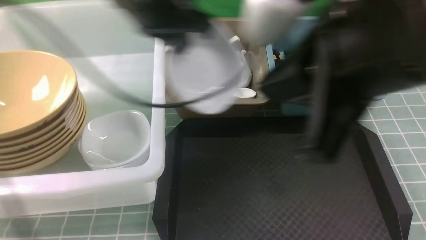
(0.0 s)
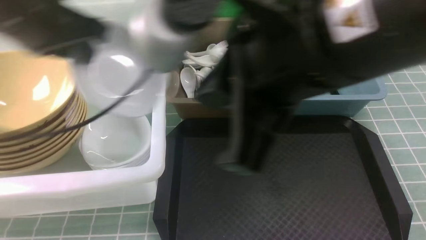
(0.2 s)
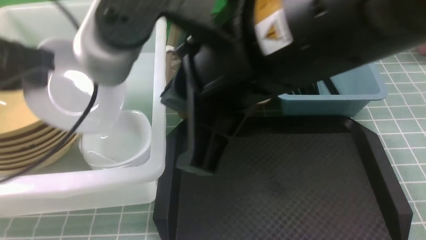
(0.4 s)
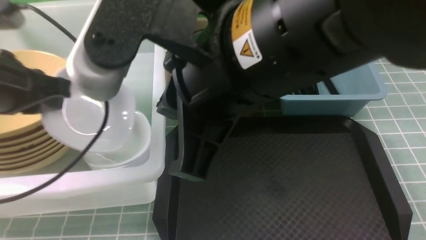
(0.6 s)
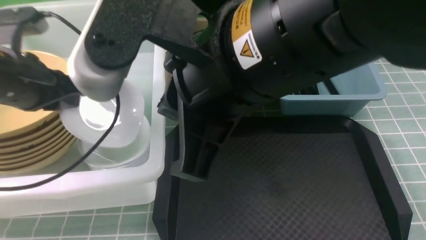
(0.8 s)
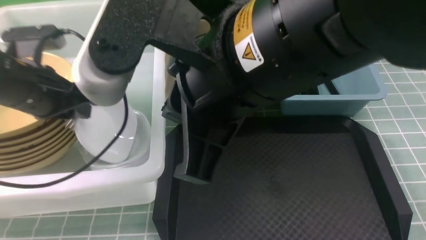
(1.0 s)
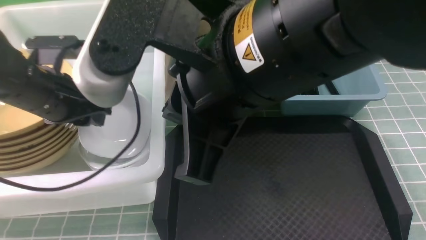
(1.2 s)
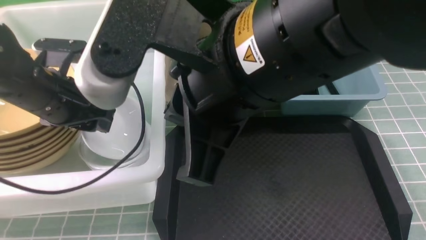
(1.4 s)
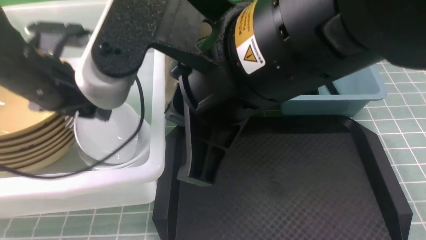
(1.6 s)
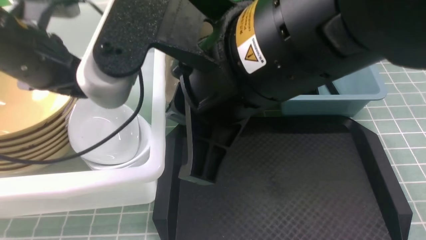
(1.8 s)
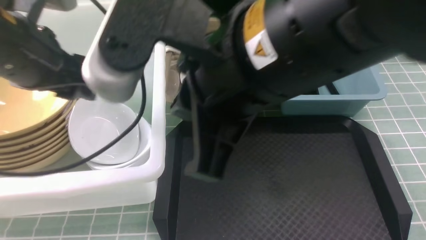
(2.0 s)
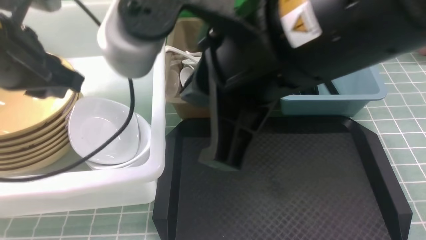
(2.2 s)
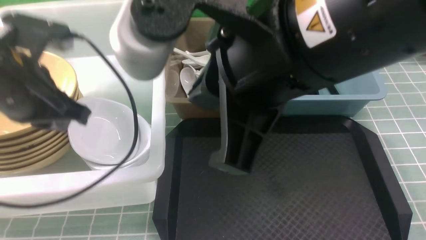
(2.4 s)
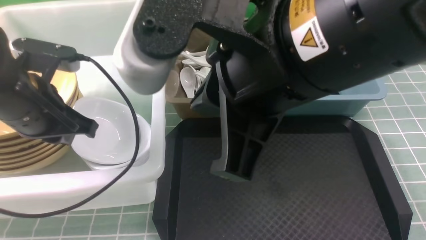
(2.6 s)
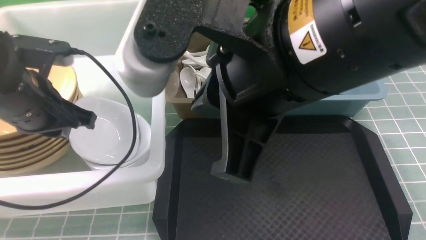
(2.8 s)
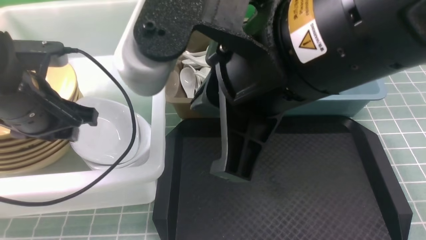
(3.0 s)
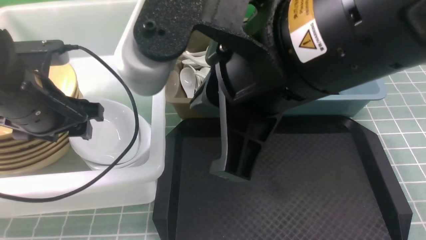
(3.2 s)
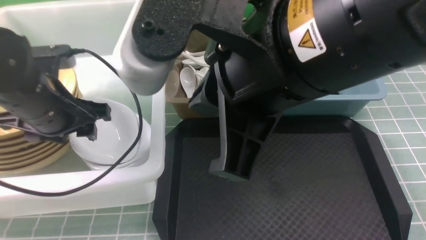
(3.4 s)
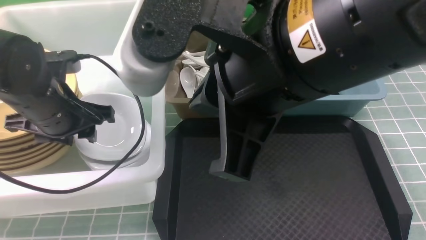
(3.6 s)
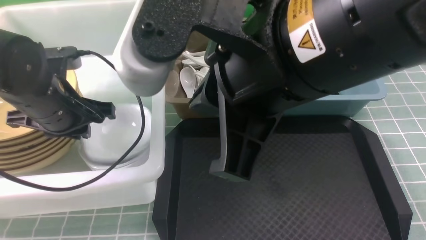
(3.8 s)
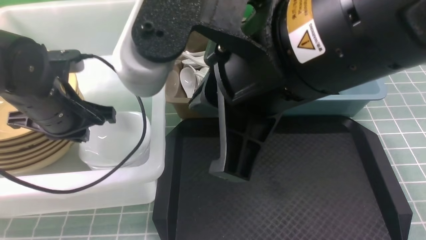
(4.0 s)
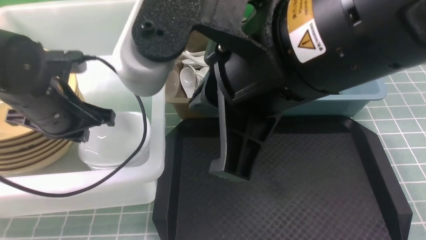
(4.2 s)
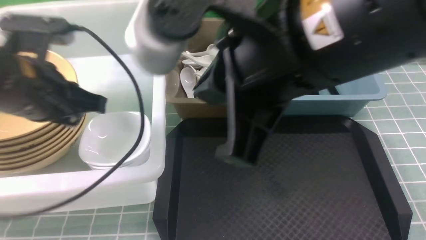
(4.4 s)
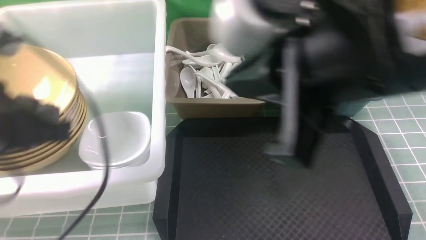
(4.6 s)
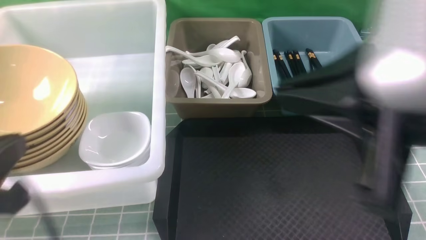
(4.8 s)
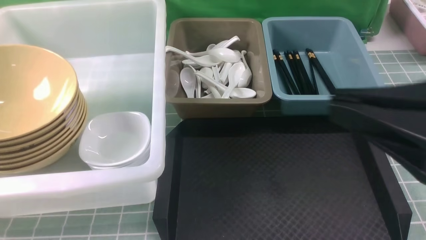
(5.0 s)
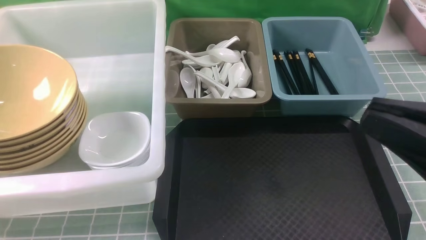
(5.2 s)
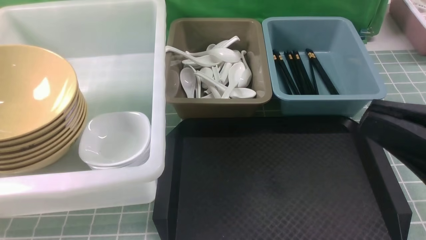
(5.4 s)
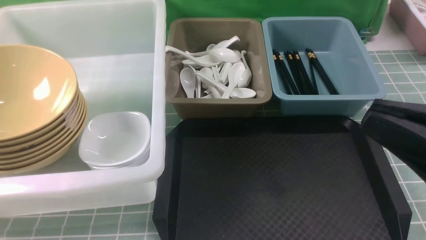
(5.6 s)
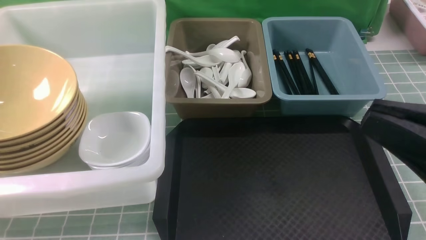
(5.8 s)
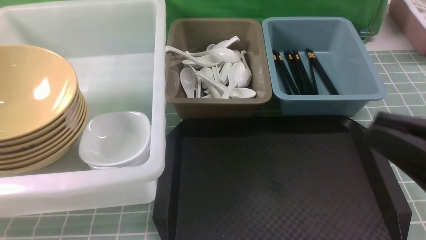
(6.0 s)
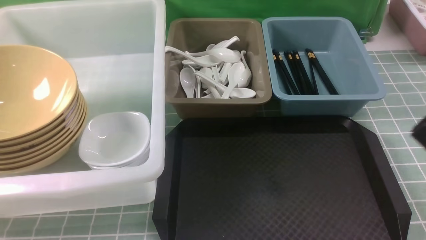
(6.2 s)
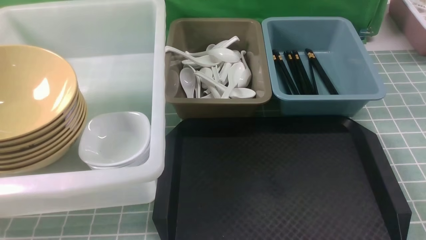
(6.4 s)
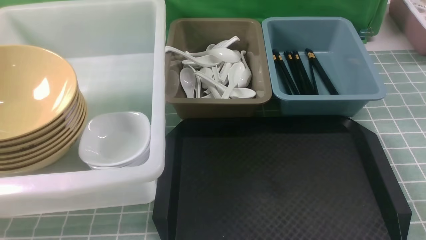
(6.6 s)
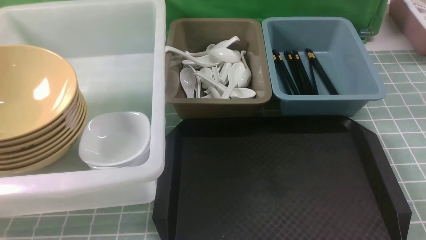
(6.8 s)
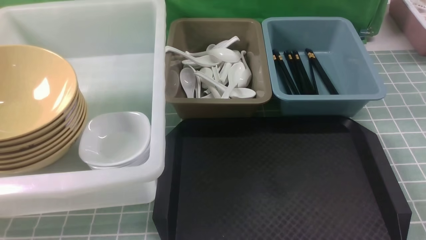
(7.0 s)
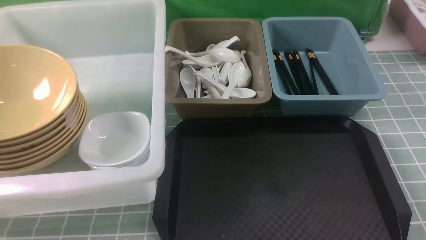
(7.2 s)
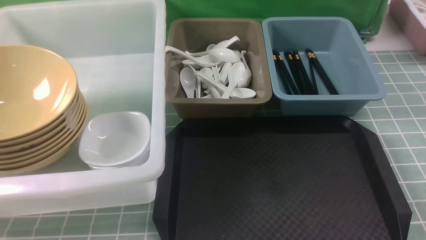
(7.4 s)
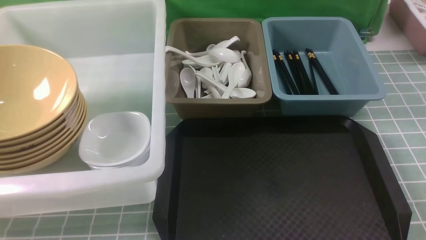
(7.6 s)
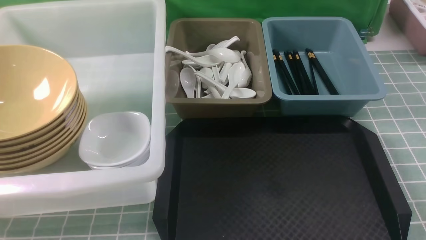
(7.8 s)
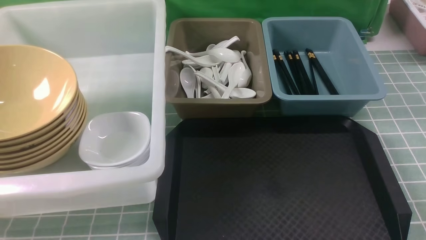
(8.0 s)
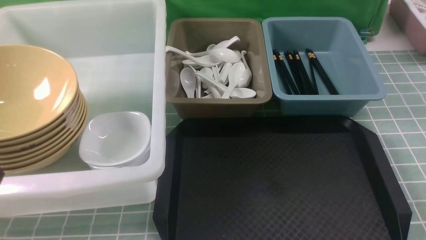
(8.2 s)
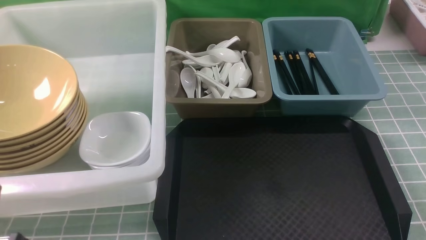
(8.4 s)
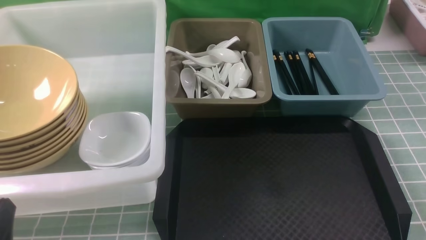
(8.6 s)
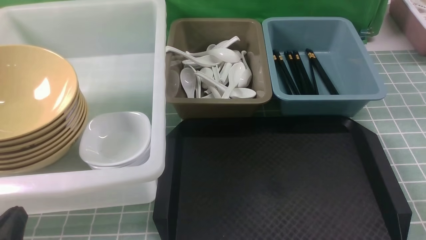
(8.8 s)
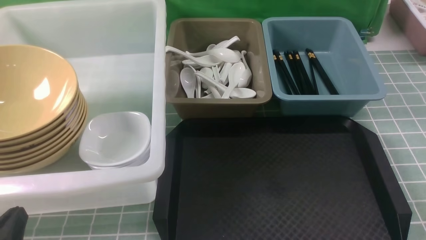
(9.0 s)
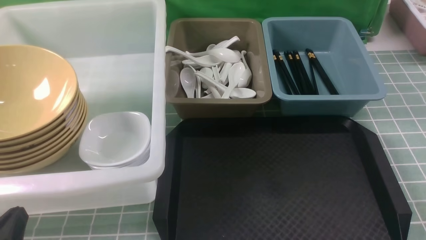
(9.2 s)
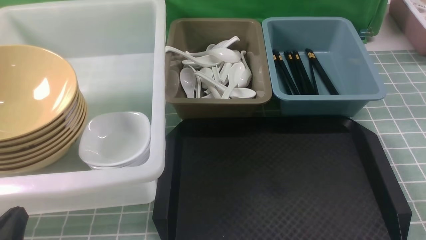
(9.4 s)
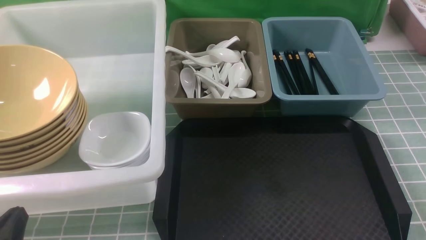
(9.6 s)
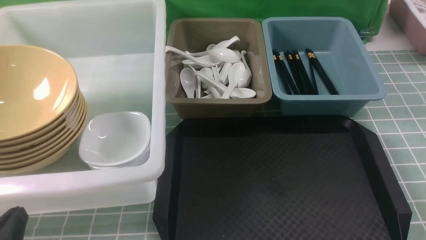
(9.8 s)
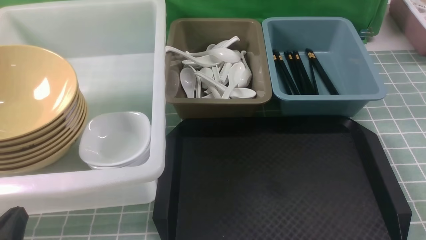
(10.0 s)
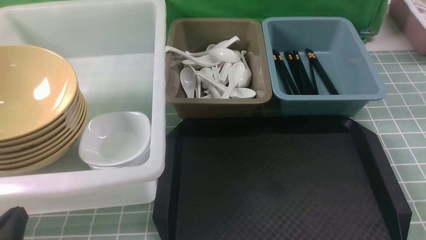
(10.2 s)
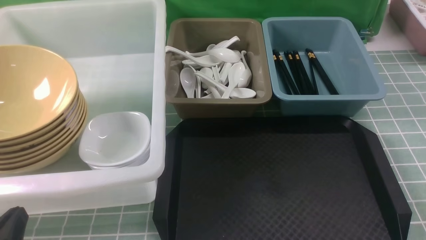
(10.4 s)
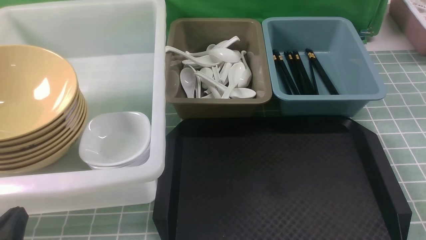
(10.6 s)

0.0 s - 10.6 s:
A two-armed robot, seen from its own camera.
Task of the whole recording: on blue table put chopsticks spoon bowls plates into blue grey white boxes.
Step, 0.0 s - 4.2 s: use the left arm to put the plate into the large storage box on the left.
0.0 s - 1.6 s: The left gripper goes about 20 cm to the left and downward, and opens. The right gripper shifts roughly 10 cm to the left.
1.6 s - 3.0 s: The left gripper closes up.
3.0 s - 4.6 s: The left gripper shifts roughly 5 cm backward.
4.6 s - 6.0 s: The right gripper travels to the right, backward and downward by some 15 cm, while the left gripper moves backward, some 15 cm.
6.0 s - 7.6 s: The right gripper travels downward and to the right by approximately 20 cm.
7.6 s - 9.0 s: The left gripper moves downward, roughly 10 cm.
9.0 s - 10.6 s: Neither gripper changes place.

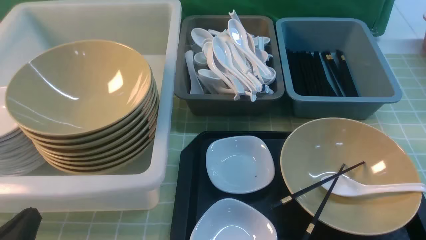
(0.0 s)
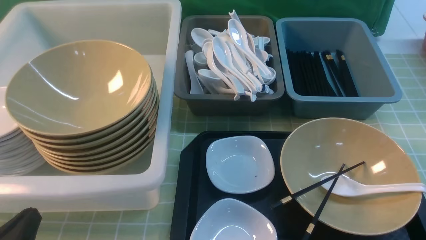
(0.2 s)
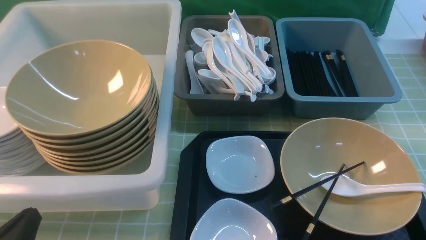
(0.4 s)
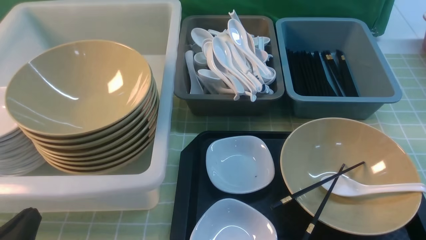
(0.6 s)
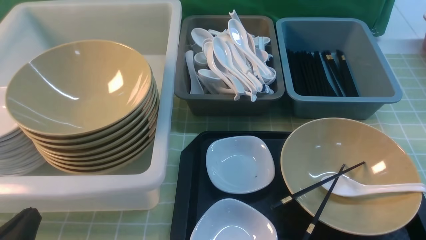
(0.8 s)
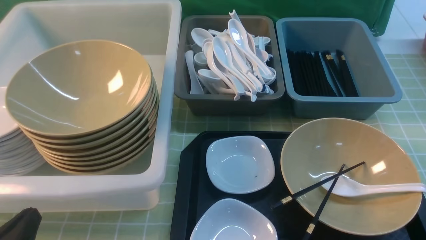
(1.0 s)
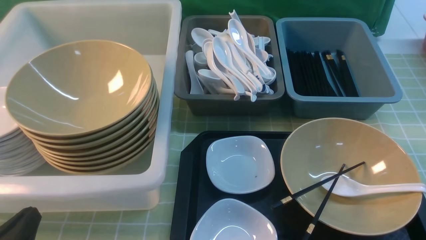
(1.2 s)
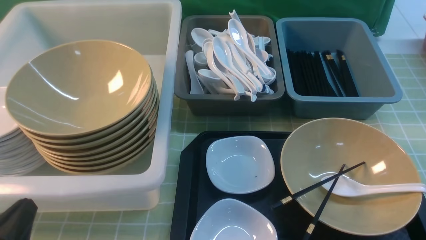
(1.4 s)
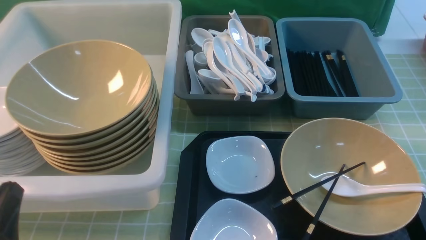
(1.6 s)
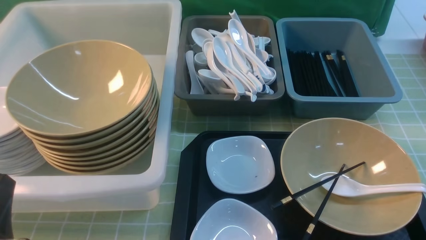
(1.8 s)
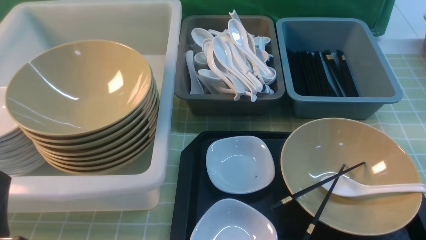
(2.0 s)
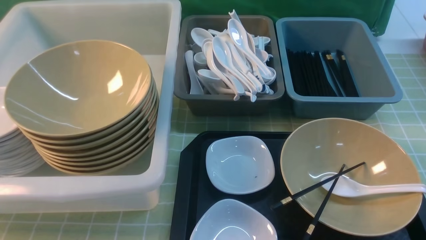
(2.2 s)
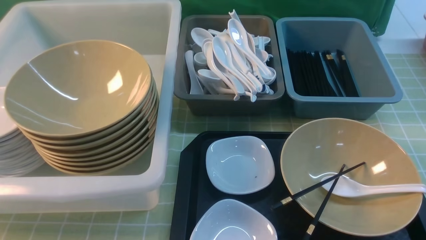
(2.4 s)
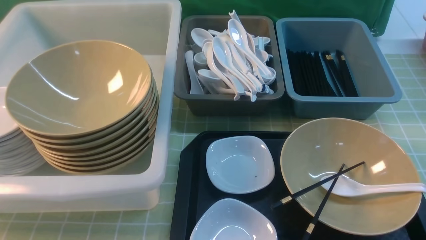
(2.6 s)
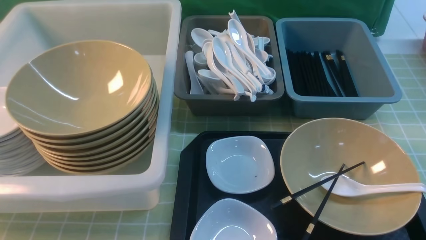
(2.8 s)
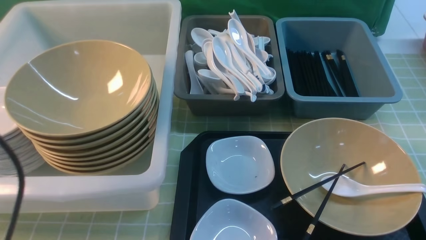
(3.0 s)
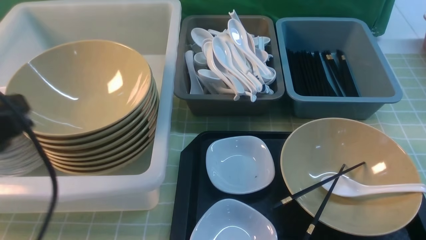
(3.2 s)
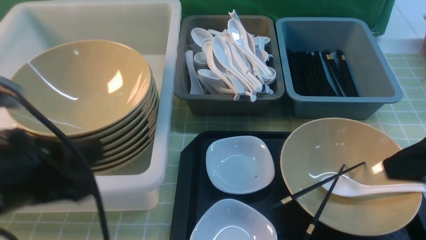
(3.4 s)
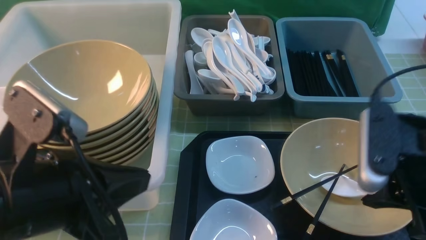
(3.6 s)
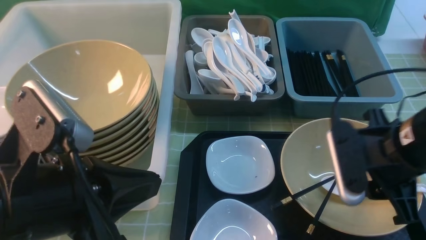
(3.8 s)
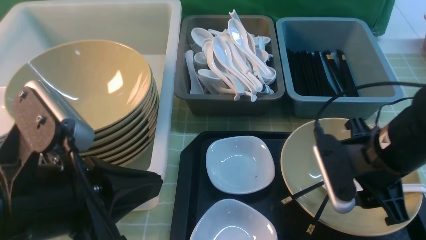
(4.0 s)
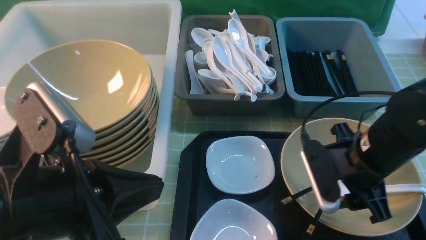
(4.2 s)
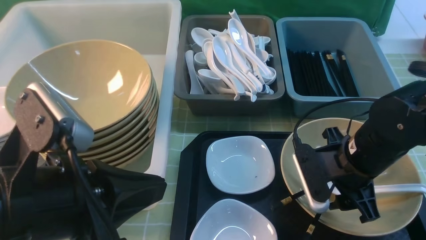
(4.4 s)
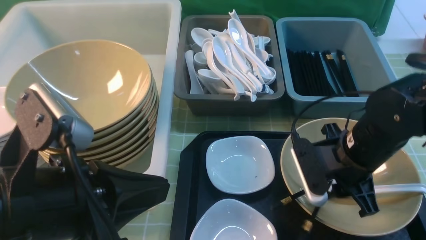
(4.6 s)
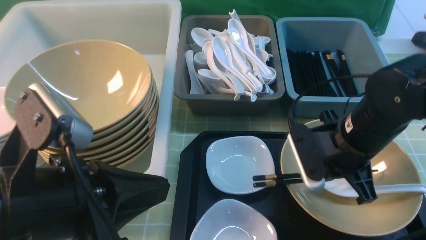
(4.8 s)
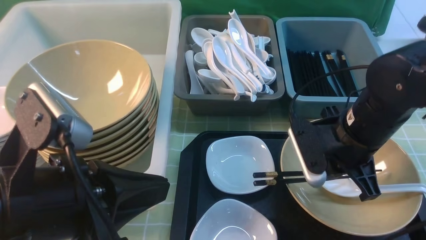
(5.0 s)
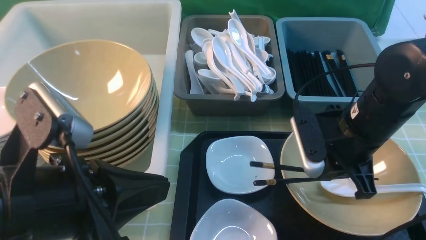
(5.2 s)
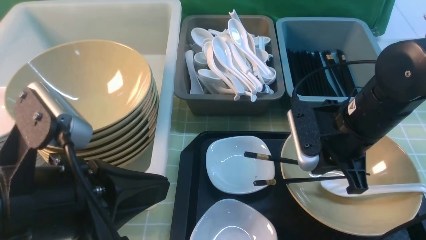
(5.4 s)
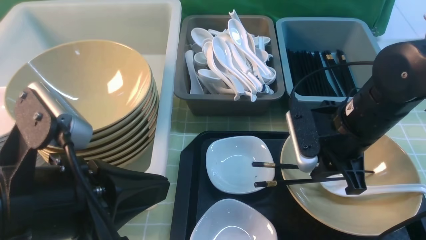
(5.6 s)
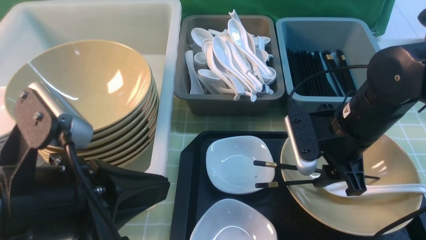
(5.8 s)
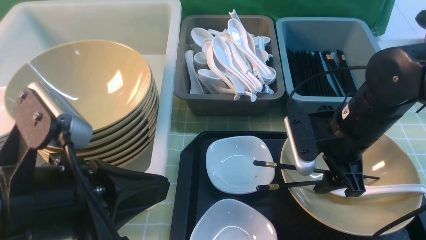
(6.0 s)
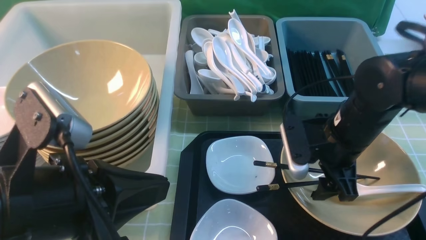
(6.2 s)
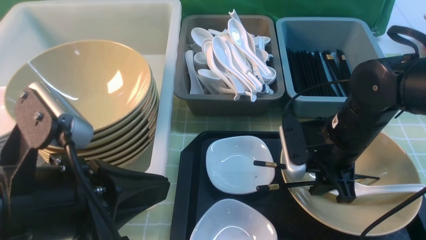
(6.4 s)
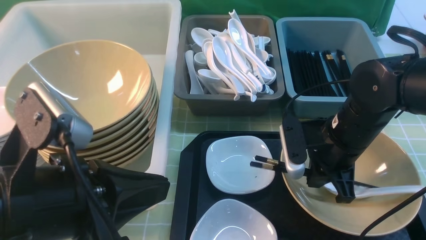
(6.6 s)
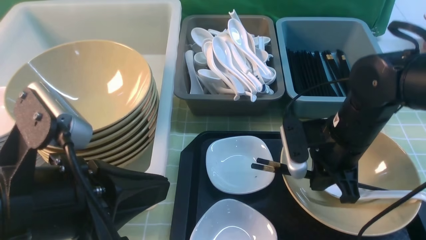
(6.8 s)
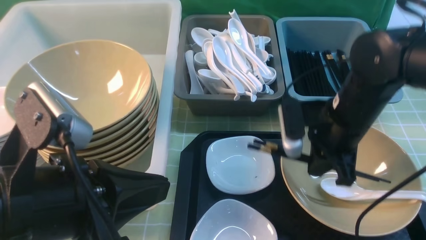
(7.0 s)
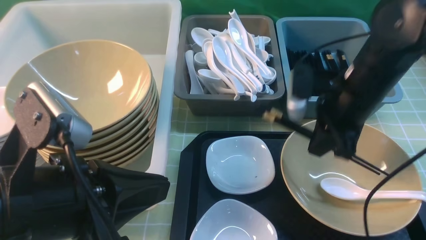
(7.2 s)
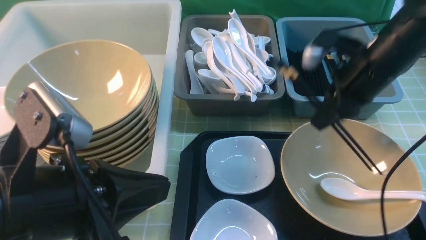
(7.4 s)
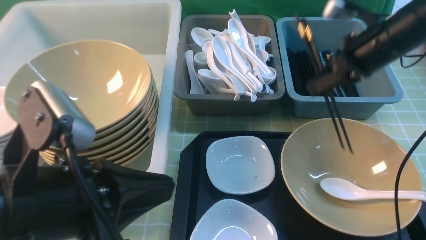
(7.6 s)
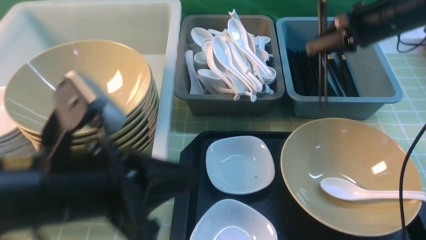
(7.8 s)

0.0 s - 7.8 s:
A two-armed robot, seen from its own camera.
Task of the whole recording: on green table put chopsticks spoon bowls plates into blue grey white boxes.
Step, 0.0 s - 7.0 s: use the right arm to grab the chopsticks.
0.0 s - 1.6 s: The grippers stay close to where they were, moving slightly.
1.6 s - 3.2 s: The left gripper shifts about 15 cm upward and forward.
3.2 s - 4.6 s: The left gripper heads to the right, covering about 5 cm. Meanwhile the right gripper goes roughly 20 cm downward, forward and to the left, and opens and closes again.
4.6 s - 6.2 s: The right gripper opens its fingers.
6.2 s - 7.8 s: The right gripper moves forward, to the right and upward, approximately 20 cm, and closes its fingers.
